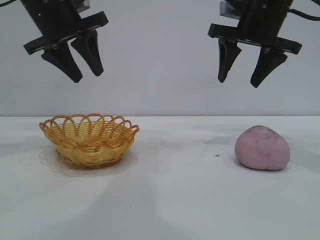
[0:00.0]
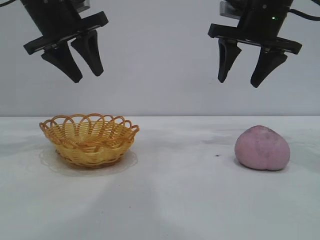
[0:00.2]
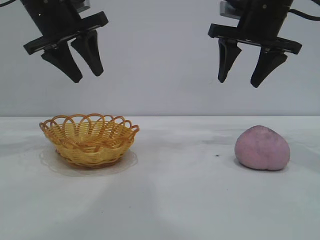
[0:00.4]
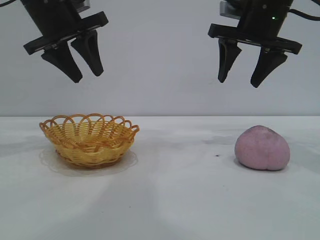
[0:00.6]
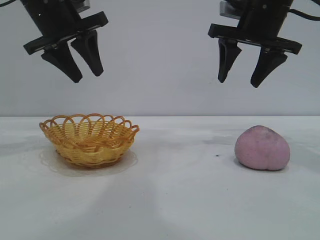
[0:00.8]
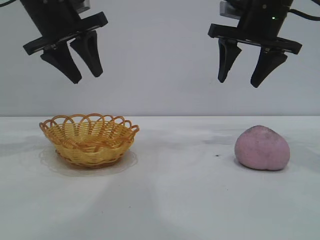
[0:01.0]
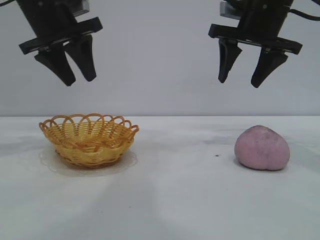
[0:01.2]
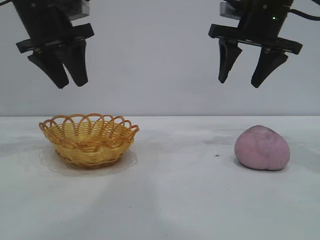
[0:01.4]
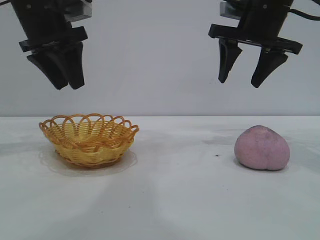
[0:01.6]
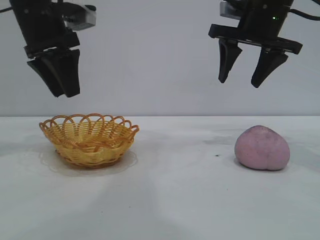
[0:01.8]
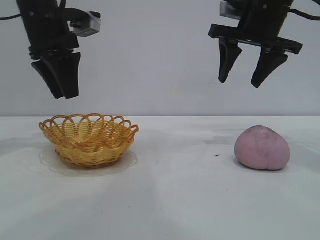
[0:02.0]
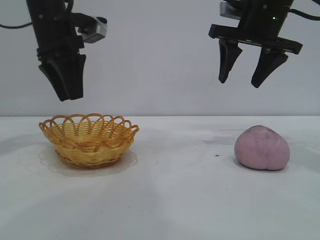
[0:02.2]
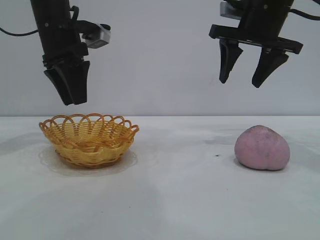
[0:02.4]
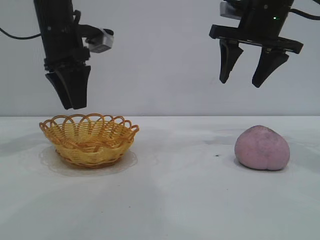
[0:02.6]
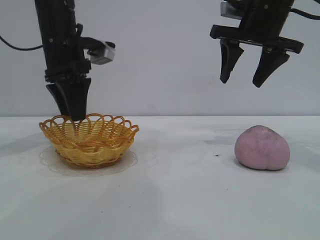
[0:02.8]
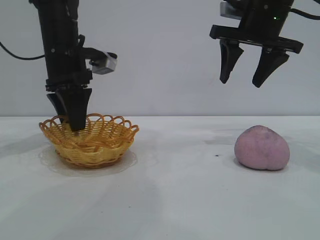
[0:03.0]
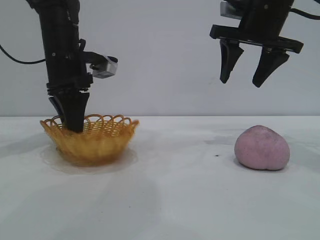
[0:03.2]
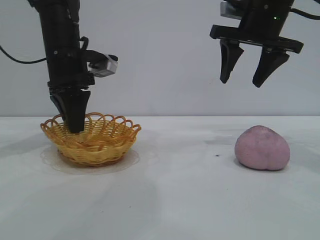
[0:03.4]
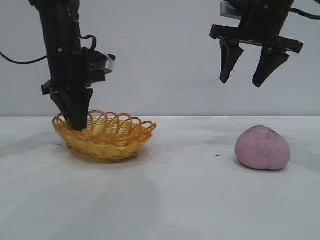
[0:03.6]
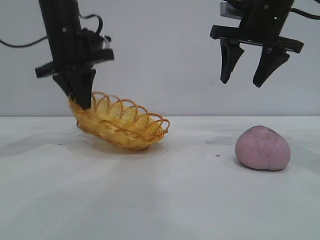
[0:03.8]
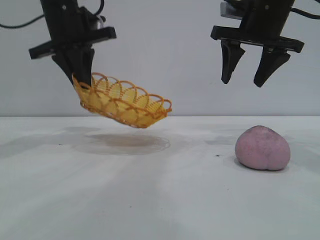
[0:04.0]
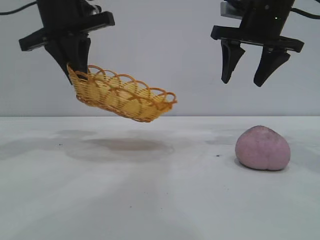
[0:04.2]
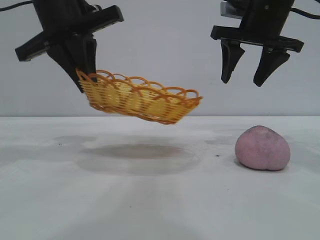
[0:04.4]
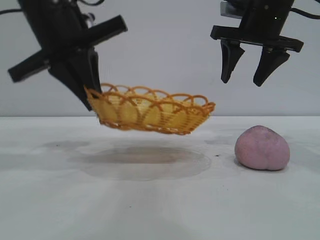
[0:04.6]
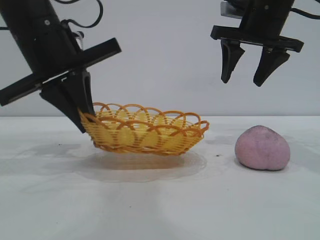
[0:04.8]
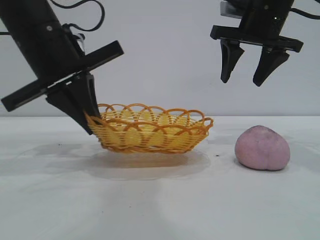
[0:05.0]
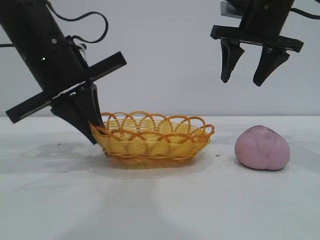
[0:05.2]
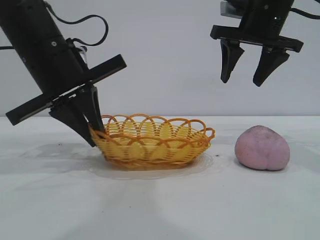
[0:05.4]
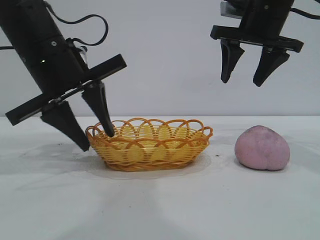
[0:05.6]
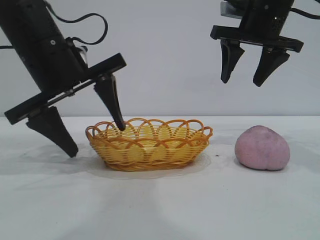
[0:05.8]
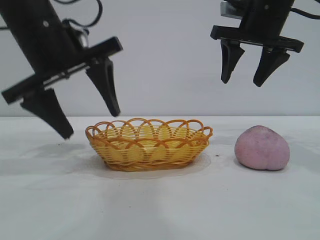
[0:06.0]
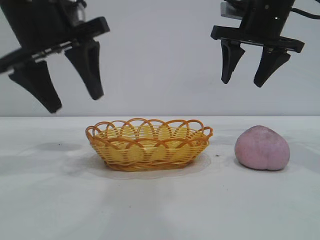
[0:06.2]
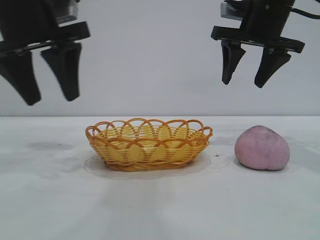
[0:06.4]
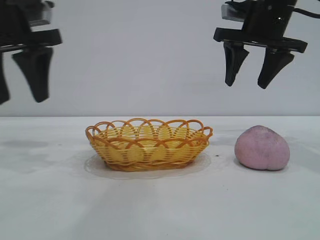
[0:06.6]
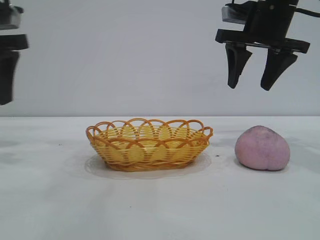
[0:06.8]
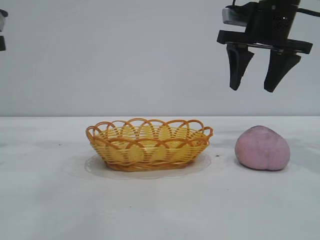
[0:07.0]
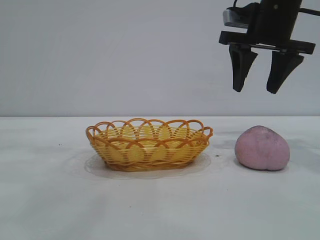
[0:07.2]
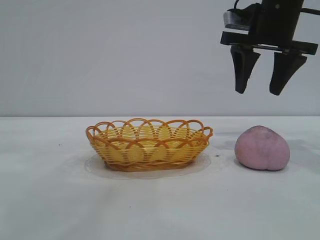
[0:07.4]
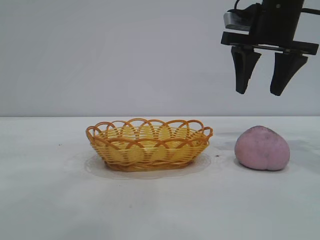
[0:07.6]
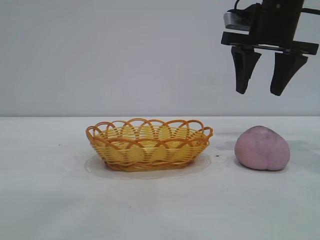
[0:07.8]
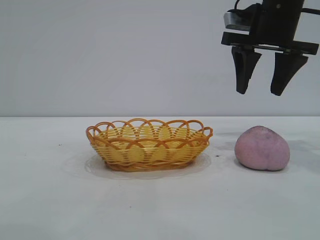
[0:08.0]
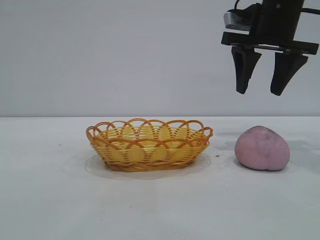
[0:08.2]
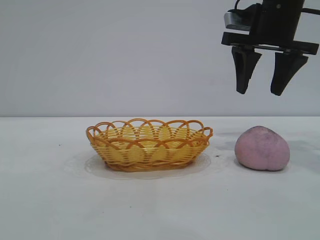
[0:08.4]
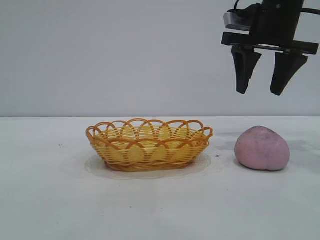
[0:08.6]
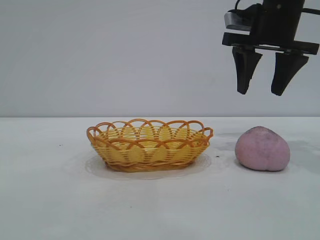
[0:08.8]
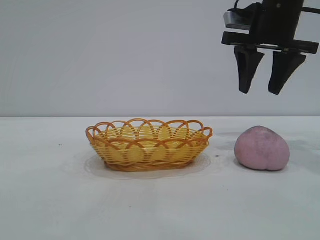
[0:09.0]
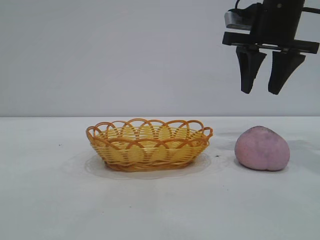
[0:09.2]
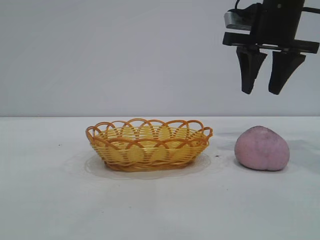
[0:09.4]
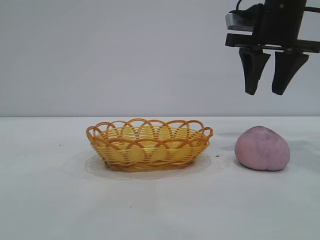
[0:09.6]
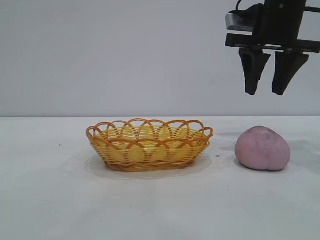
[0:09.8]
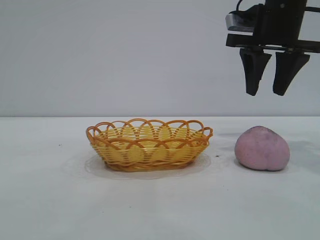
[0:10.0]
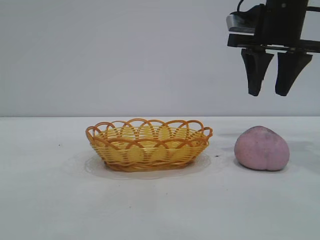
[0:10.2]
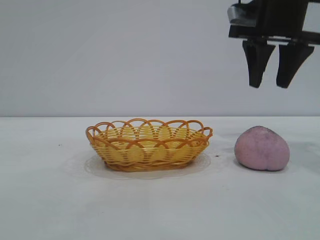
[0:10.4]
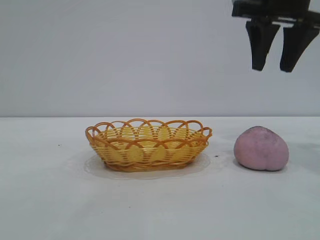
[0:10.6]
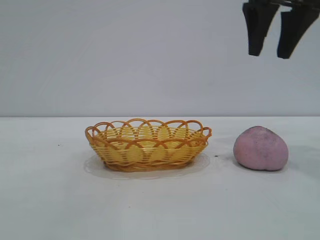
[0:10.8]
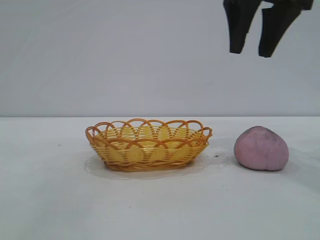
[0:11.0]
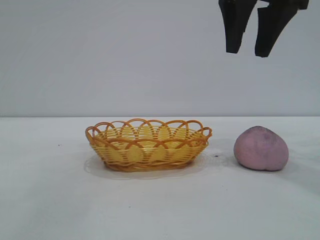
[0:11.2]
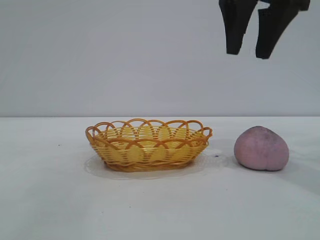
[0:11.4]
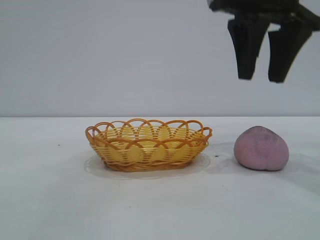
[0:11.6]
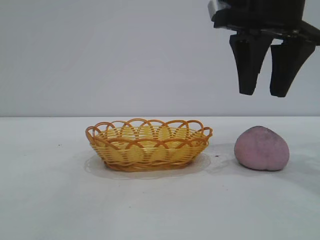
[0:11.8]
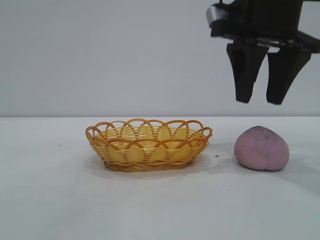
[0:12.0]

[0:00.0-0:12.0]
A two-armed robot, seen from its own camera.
Task of the whole recording: pick up the peach and put it into the basket.
Step, 0:00.0 to 0:06.2: Move the basket to the center of view.

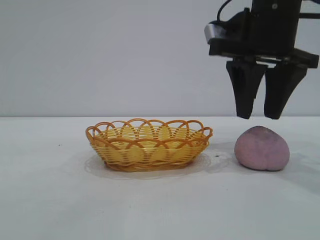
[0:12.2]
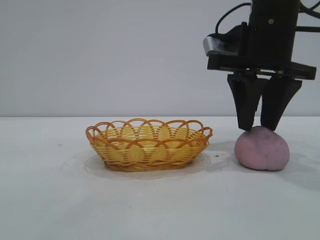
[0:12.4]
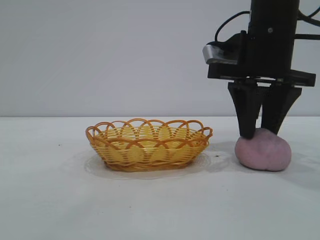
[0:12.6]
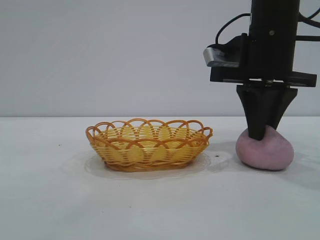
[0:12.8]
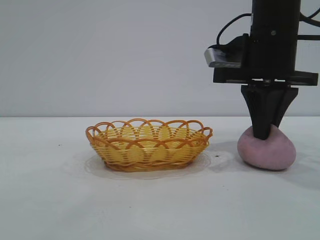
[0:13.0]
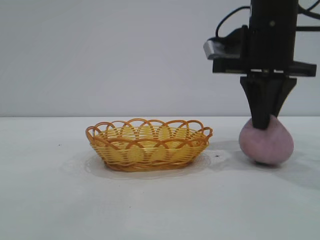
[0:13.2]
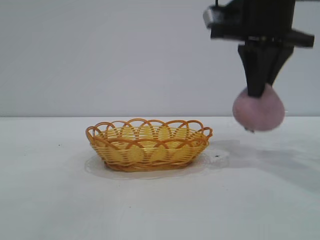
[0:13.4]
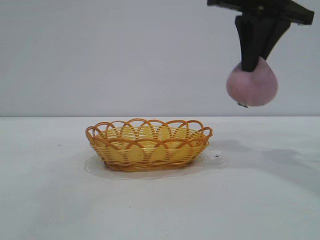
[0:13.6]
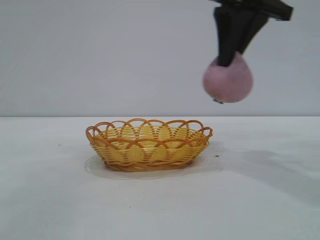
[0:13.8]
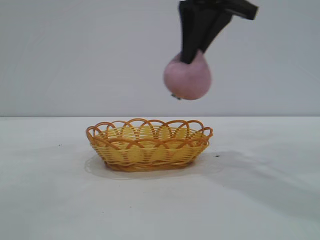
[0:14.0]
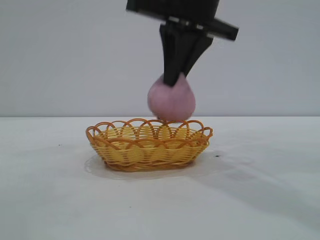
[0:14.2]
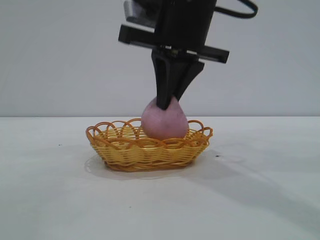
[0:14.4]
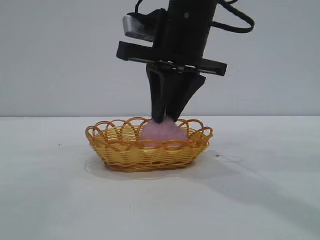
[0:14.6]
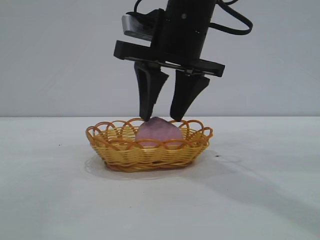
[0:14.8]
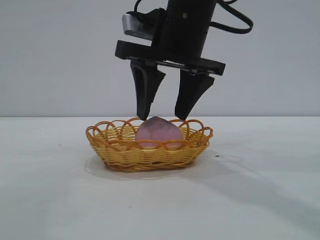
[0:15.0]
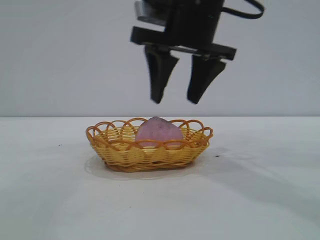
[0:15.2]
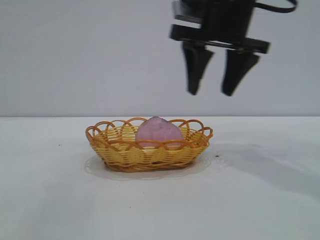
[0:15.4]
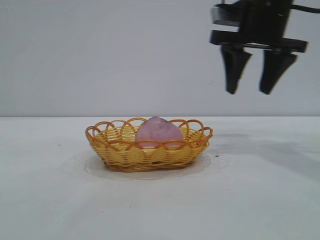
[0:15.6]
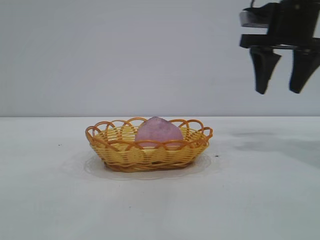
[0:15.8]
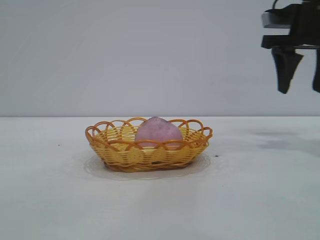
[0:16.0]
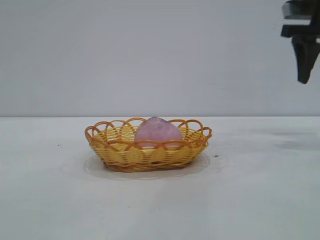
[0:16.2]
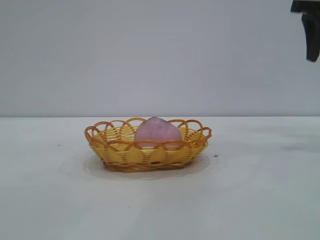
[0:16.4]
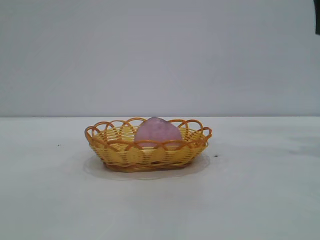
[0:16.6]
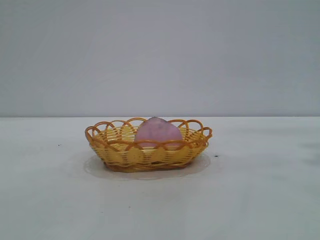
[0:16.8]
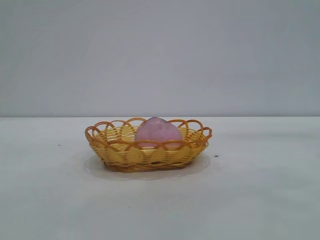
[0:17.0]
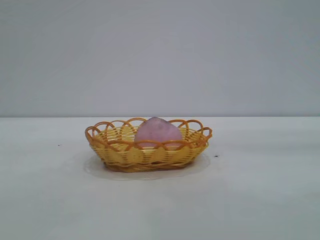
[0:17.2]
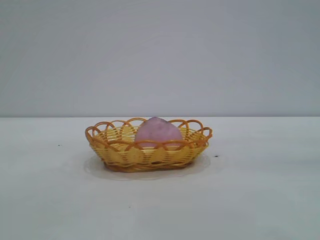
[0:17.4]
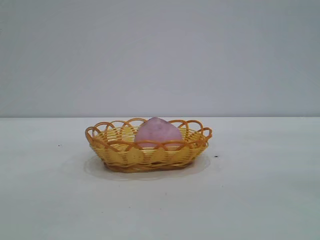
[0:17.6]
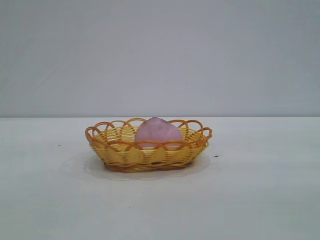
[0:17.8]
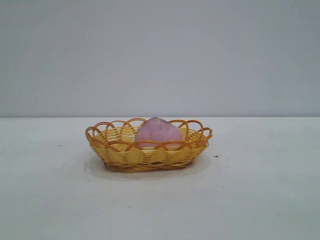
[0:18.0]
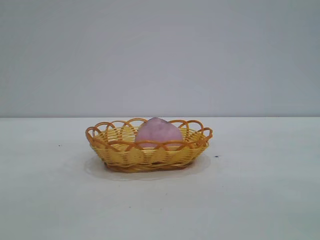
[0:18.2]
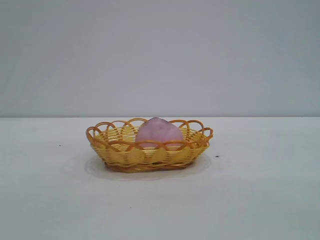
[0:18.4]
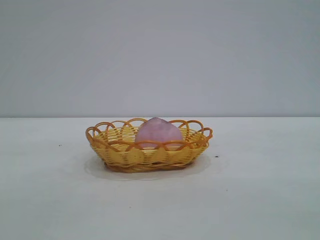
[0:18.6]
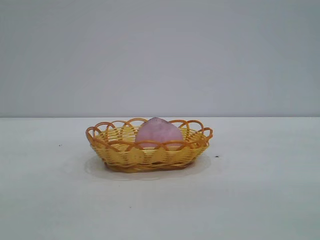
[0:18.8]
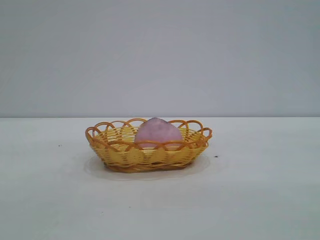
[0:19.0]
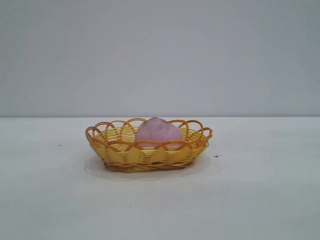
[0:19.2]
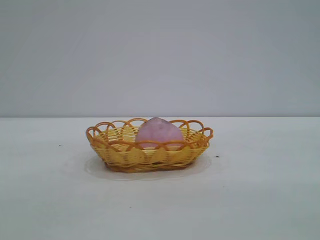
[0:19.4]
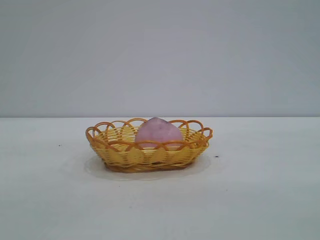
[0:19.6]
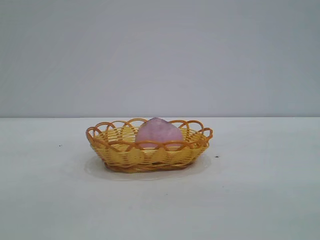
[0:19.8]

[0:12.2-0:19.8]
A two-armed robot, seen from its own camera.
Task of the whole recording: pick up the peach and put it into the basket.
Step, 0:13.6 to 0:15.2: place the peach into the basket.

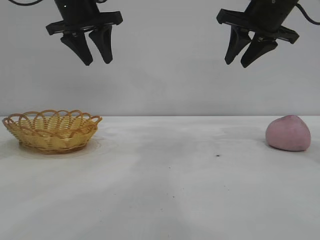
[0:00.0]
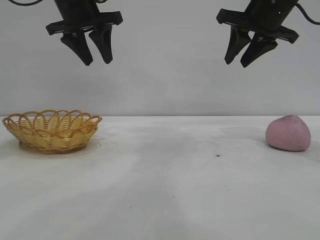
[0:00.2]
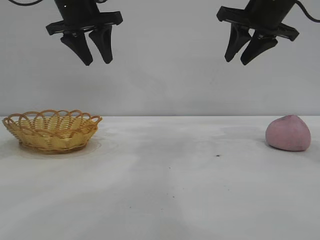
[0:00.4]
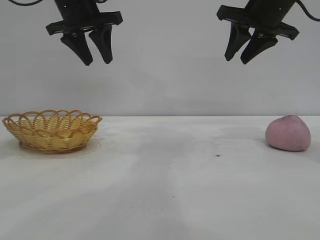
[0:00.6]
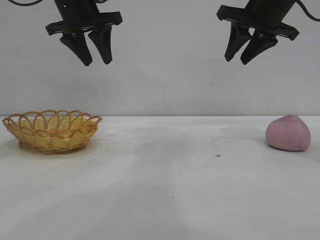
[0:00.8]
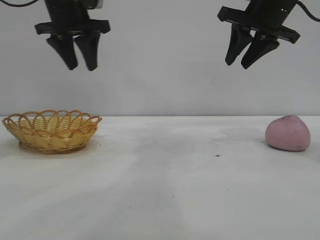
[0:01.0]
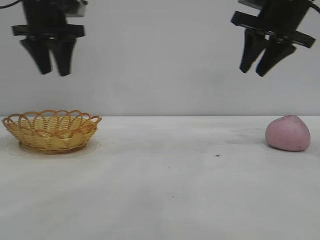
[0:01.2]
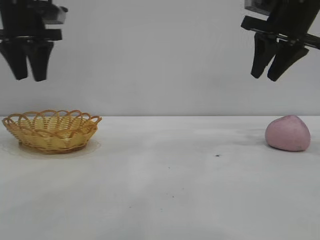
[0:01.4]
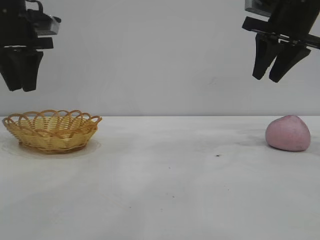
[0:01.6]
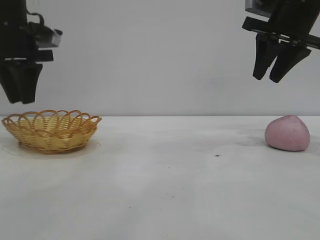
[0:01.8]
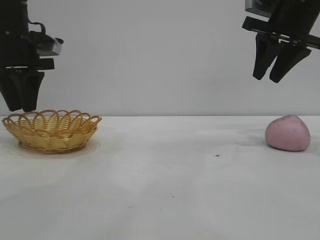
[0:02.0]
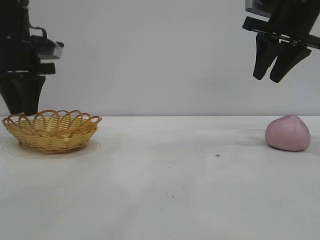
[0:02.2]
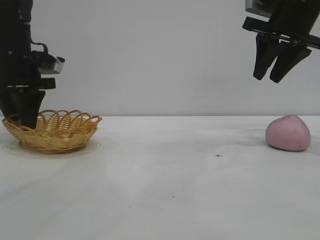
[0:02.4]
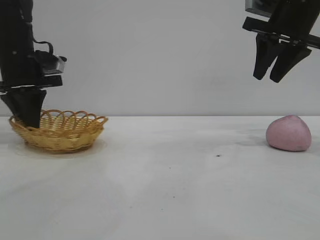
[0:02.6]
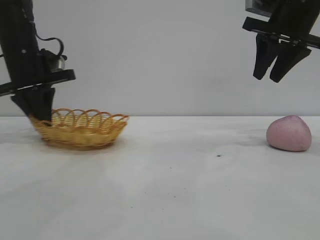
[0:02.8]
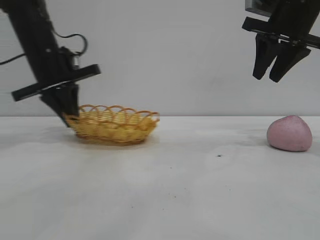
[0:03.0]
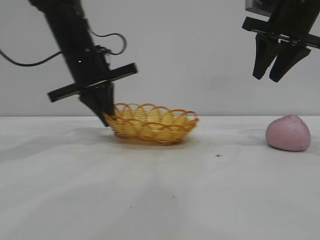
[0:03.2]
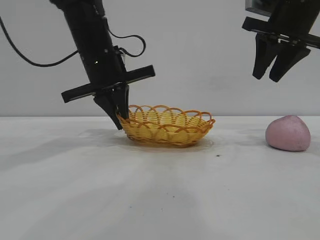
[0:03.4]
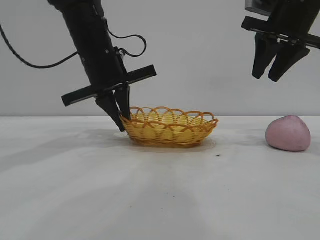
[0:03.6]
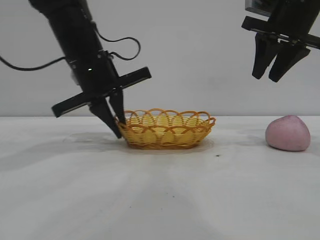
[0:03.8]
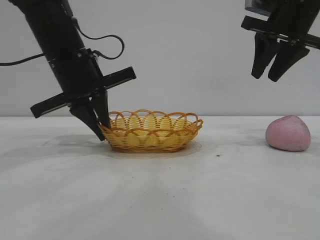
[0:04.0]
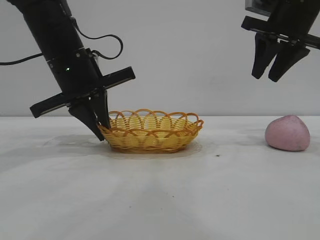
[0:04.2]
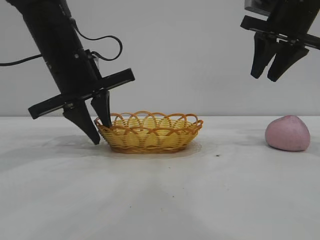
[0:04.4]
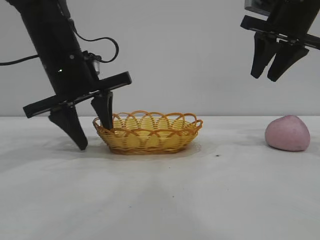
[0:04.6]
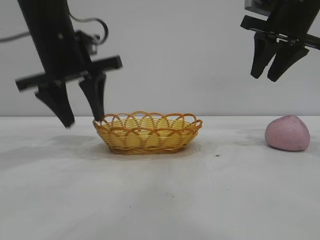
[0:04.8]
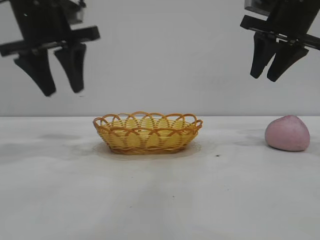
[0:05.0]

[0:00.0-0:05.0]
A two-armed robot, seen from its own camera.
Task of the whole recording: pick up the peach and put it into the basket.
Step, 0:00.0 to 0:05.0: Move the basket to the center of view.
